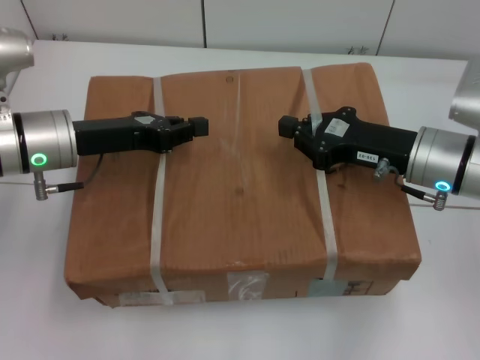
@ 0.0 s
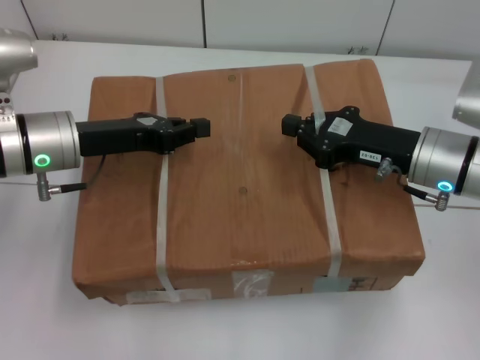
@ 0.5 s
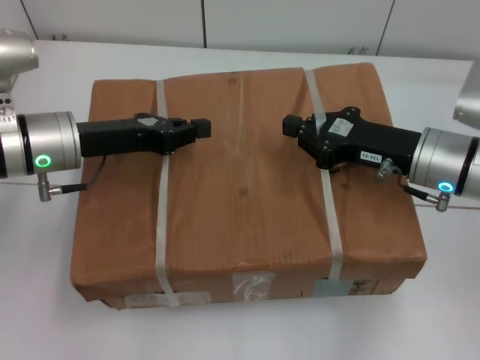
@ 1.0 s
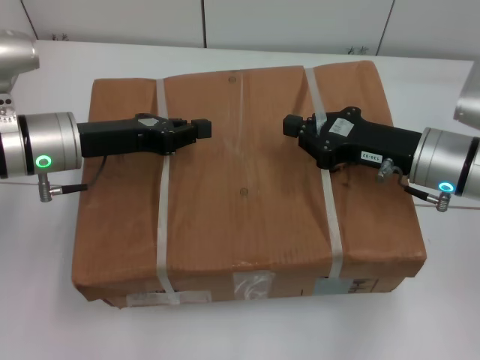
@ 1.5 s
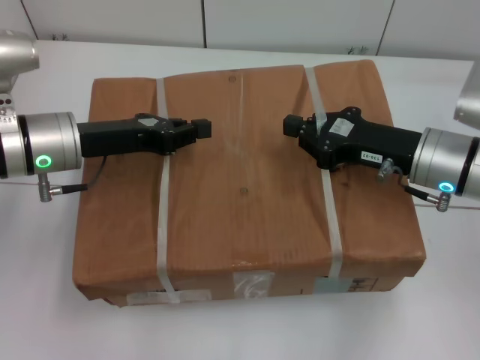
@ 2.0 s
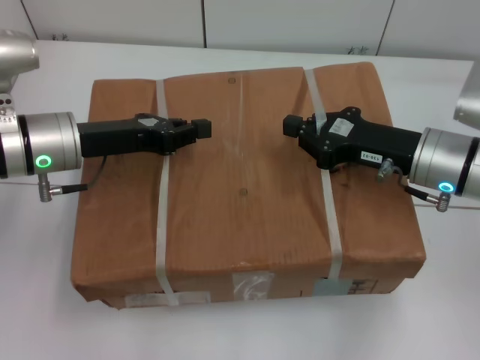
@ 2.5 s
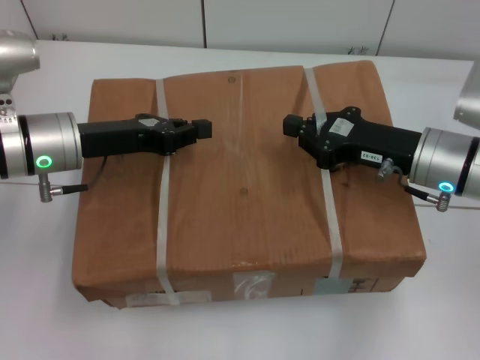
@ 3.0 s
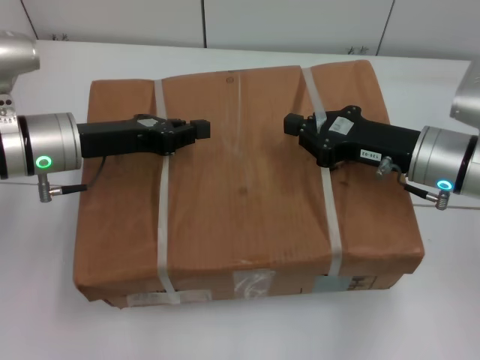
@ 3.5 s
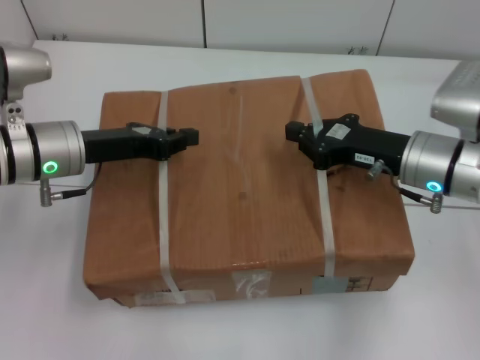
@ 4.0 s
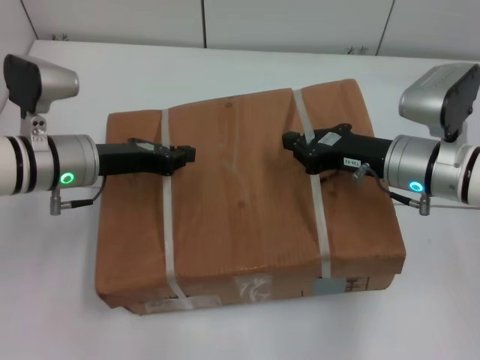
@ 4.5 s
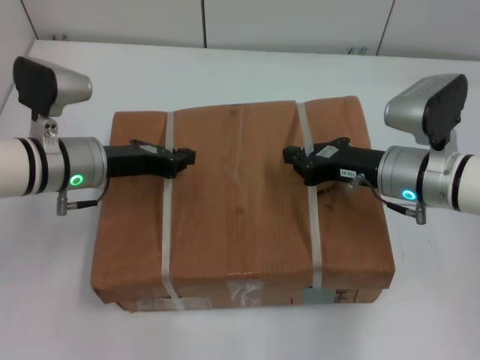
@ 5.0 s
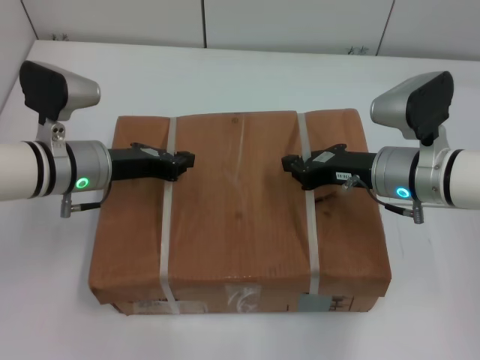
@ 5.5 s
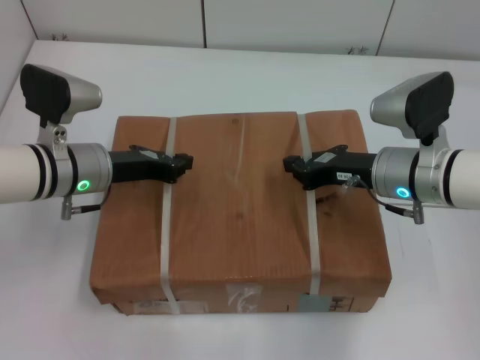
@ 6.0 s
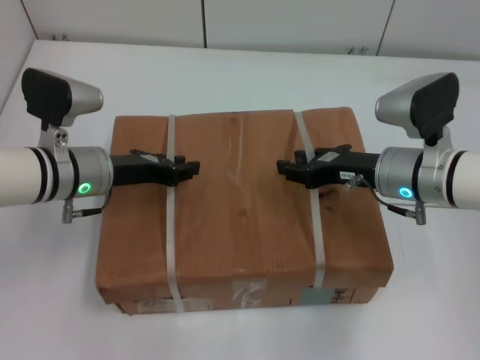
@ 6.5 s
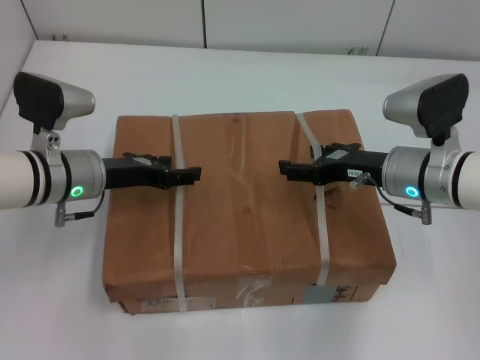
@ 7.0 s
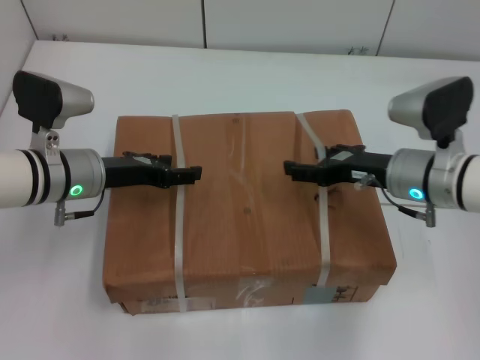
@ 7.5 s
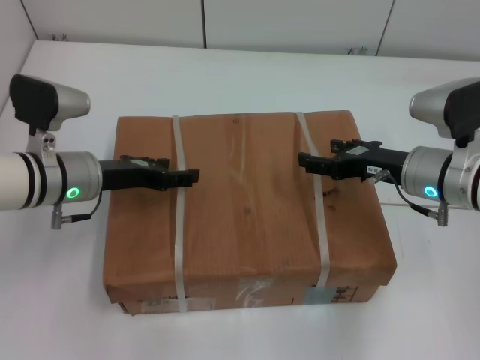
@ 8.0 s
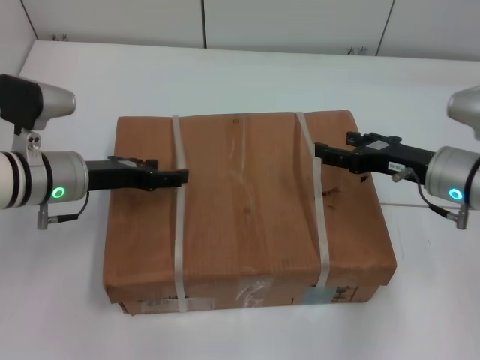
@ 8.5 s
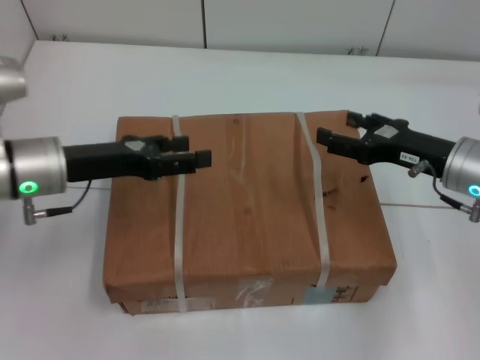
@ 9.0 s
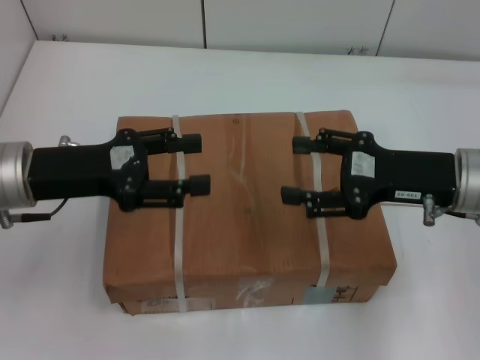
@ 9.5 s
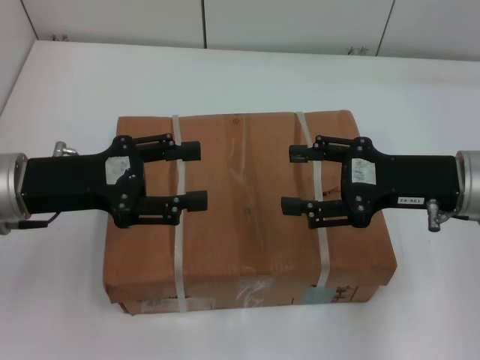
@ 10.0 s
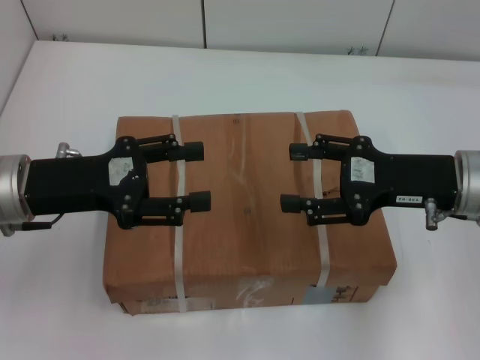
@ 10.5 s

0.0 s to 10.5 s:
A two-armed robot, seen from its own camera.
Task of the whole recording: place the box on the table with both arms.
Step, 0.0 to 5.5 s: Place the box on the table with left gripper.
Step, 0.0 to 5.5 s: Place the box on the table with right gripper.
Step, 6.0 to 7.5 s: Loosen the box on the table with left gripper.
Step, 6.0 to 7.5 s: Loosen the box on the table with right gripper.
0.0 to 2.0 s: Both grippers stay about where they are.
2.0 to 4.0 s: The grippers stay close to where they were, moving slightly.
6.5 to 8.5 s: The right gripper shifts roughly 5 cm to the right, and opens its fingers; the left gripper opens its fingers.
8.5 to 10.5 s: The right gripper is displaced upward by approximately 5 cm, while the left gripper goes approximately 10 cm upward and backward.
